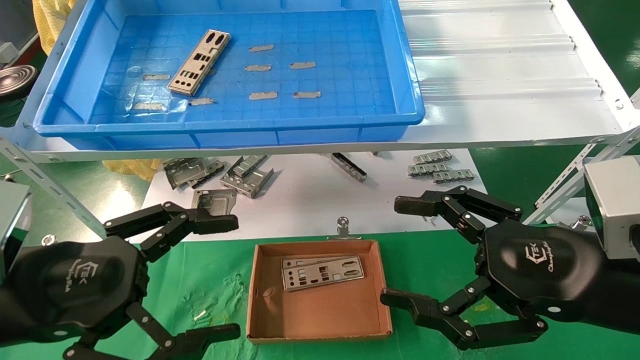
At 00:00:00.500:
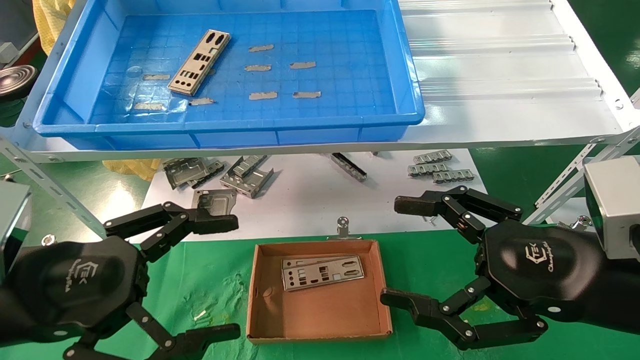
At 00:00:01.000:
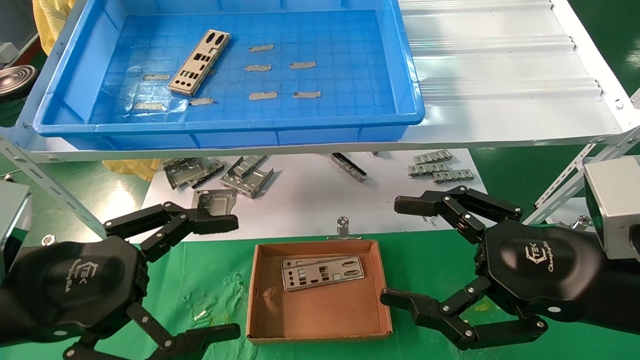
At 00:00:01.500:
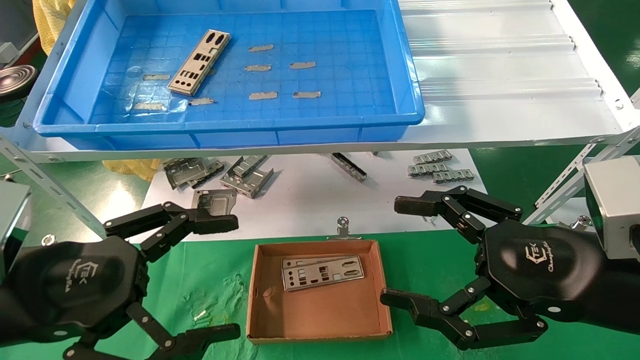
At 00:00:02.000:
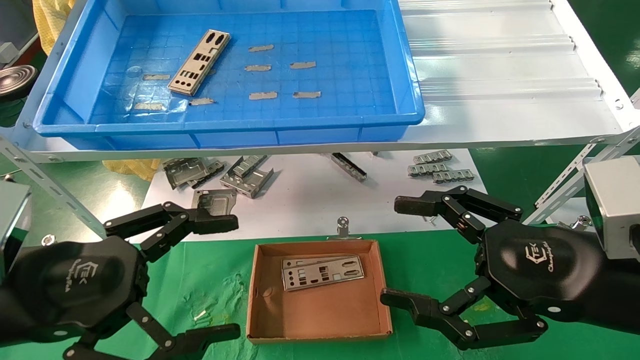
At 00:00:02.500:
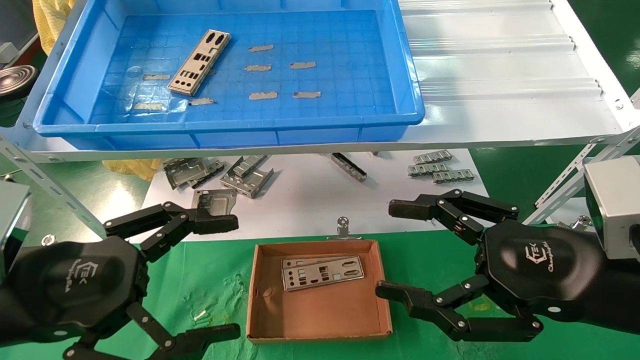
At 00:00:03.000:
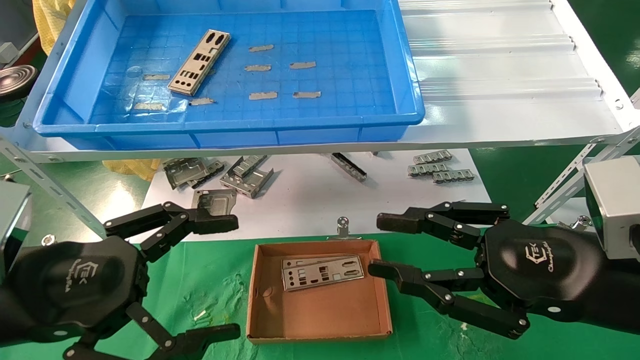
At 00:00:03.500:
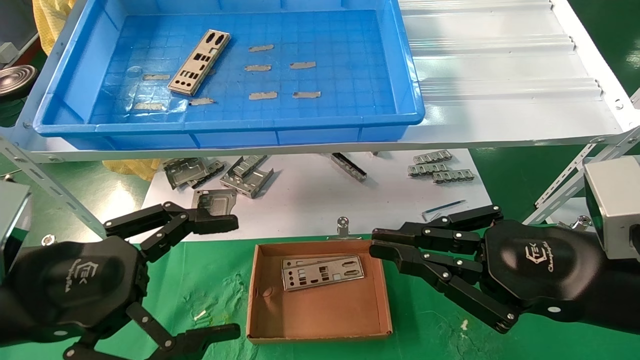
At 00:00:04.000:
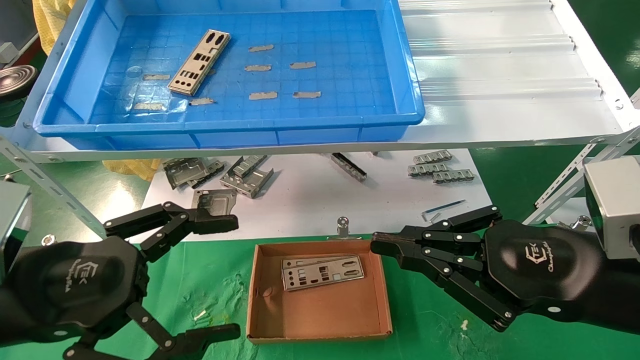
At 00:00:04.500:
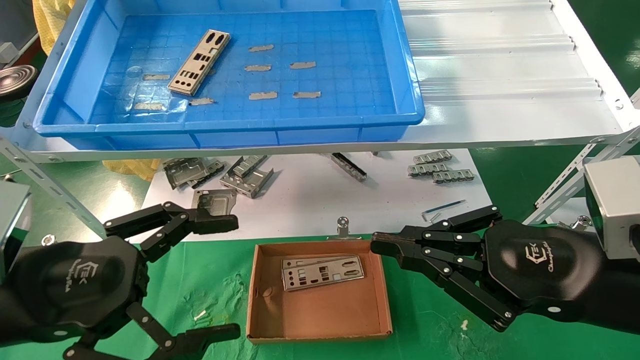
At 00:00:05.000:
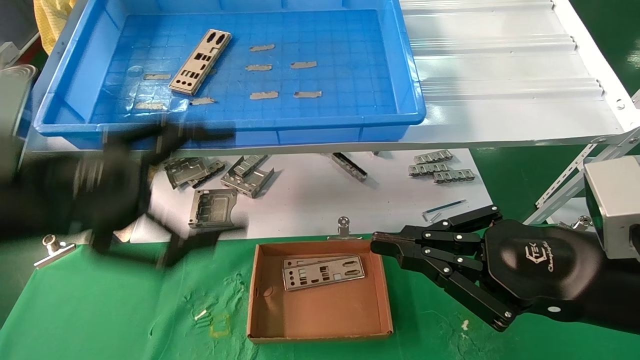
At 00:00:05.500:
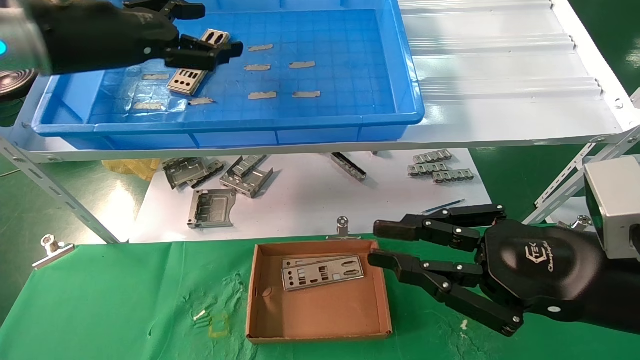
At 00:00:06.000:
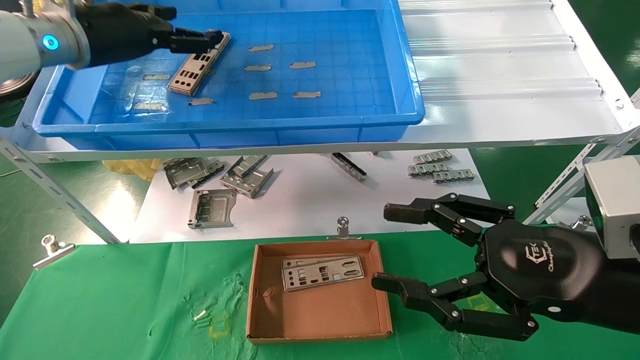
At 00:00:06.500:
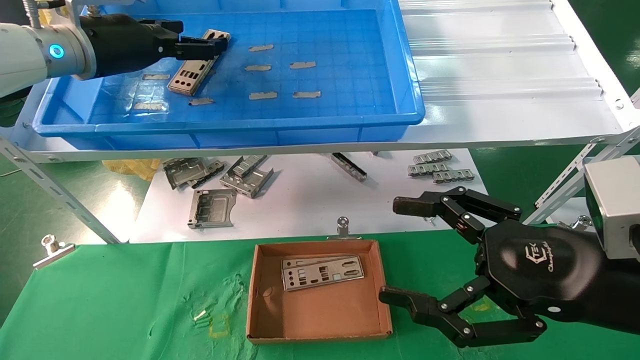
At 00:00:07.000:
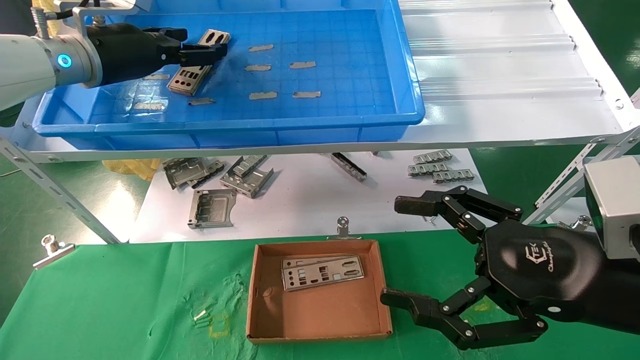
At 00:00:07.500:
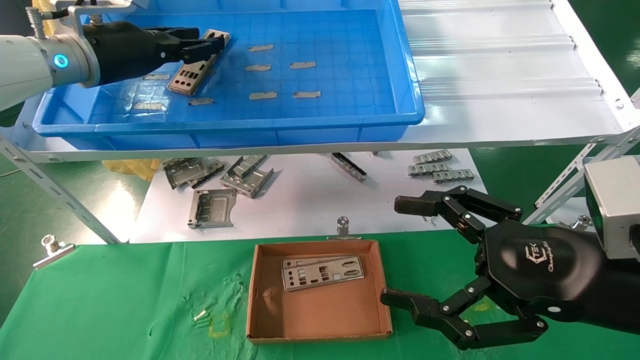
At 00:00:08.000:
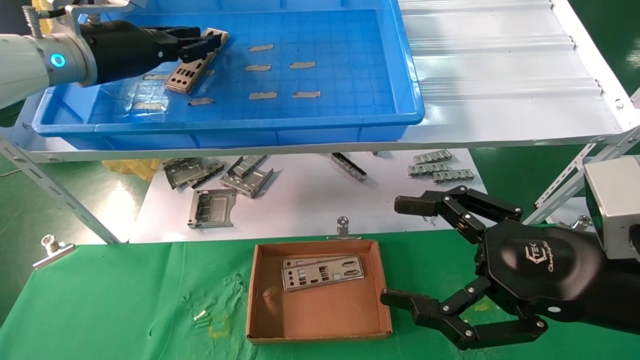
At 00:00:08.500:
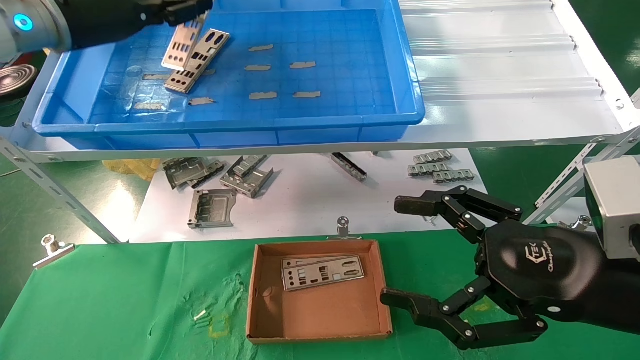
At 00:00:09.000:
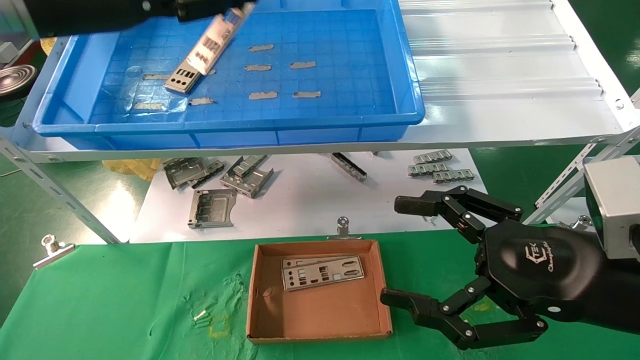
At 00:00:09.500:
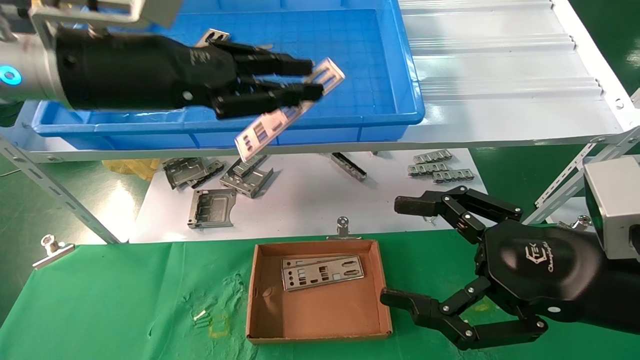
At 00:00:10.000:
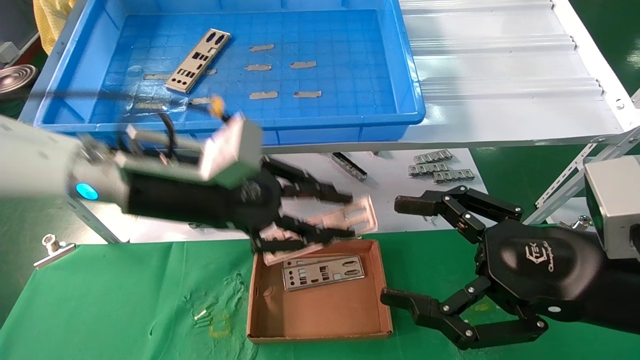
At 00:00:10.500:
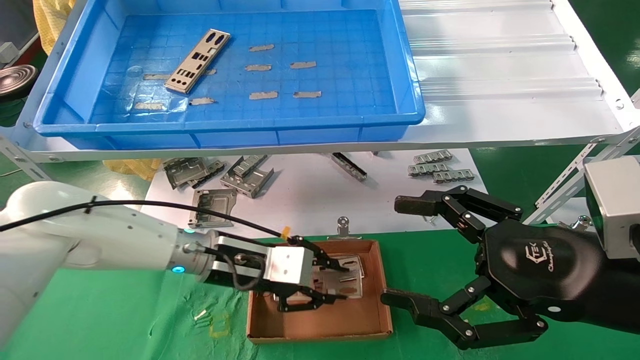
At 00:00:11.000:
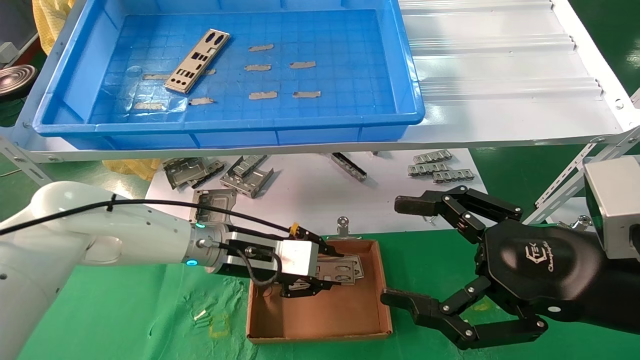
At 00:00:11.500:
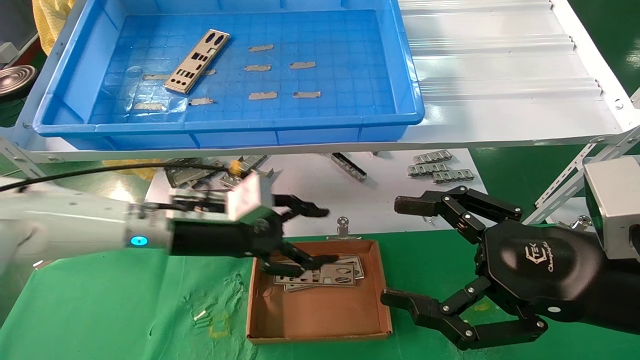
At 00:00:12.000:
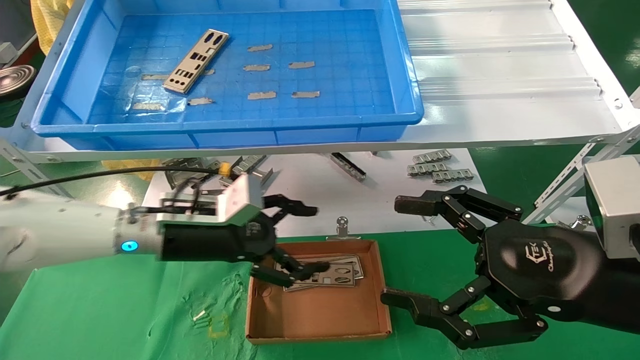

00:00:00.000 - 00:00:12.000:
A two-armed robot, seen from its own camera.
Task of the whole recording: pick up the parts on the tray and put them in the cardboard box.
Step, 00:00:05.500 - 00:00:07.500: Pick up the IO bracket from the container box.
Step, 00:00:08.000 - 00:00:11.000: Place the IO bracket into the ingredient slot.
00:00:00.000 - 00:00:02.000: Both grippers stay put.
00:00:02.000 - 00:00:04.000: The right gripper closes.
00:00:04.000 - 00:00:06.000: The left gripper moves forward and upward, roughly 30 cm; the right gripper opens up.
00:00:06.000 - 00:00:08.000: The right gripper opens its fingers. Meanwhile the left gripper closes up.
00:00:08.000 - 00:00:10.000: The left gripper is displaced downward, to the right and backward by approximately 20 cm.
00:00:10.000 - 00:00:12.000: The left gripper shifts roughly 10 cm downward, and opens its fingers.

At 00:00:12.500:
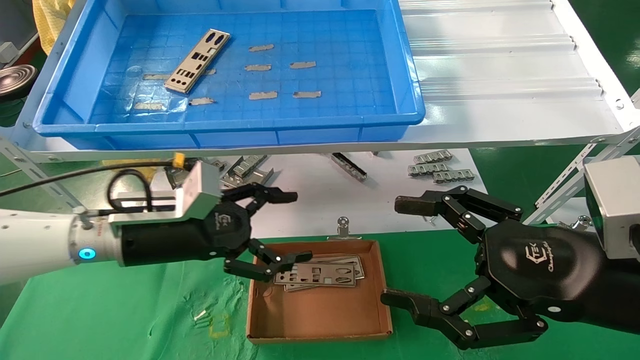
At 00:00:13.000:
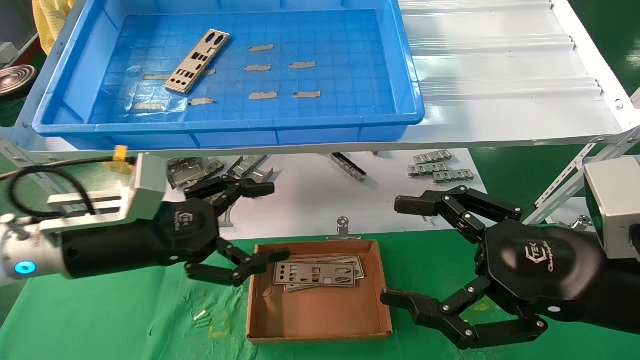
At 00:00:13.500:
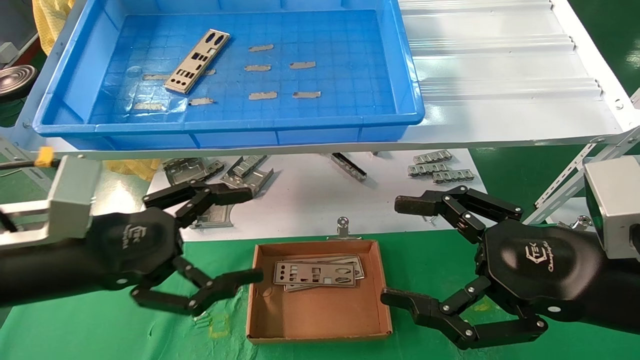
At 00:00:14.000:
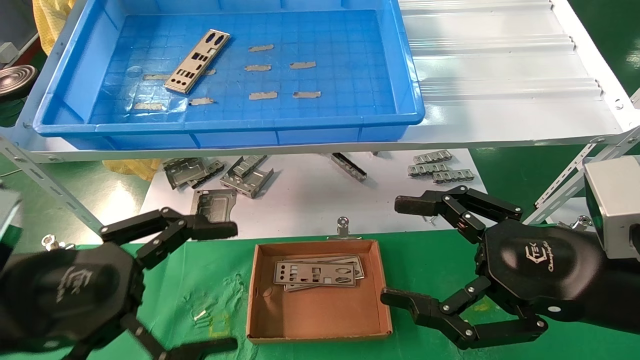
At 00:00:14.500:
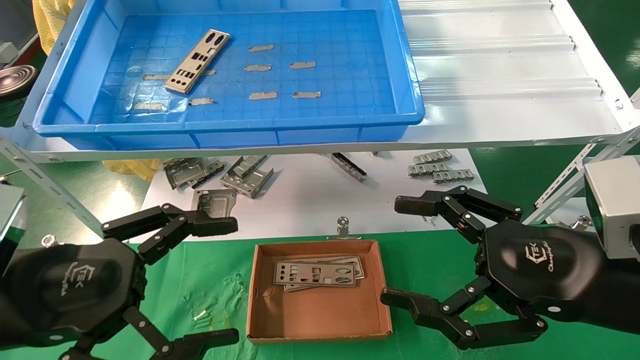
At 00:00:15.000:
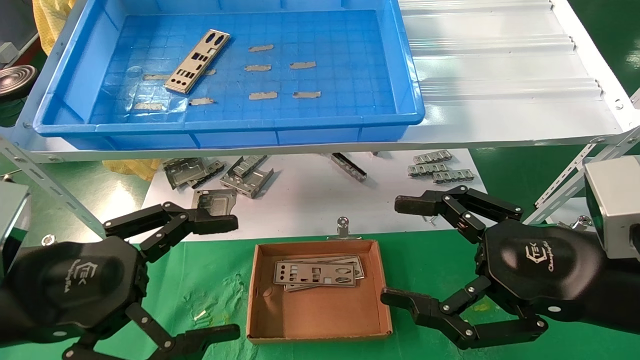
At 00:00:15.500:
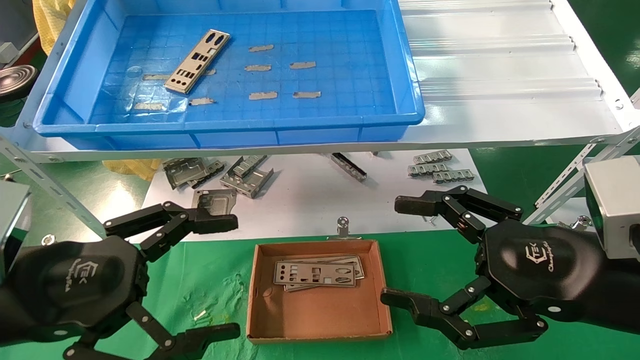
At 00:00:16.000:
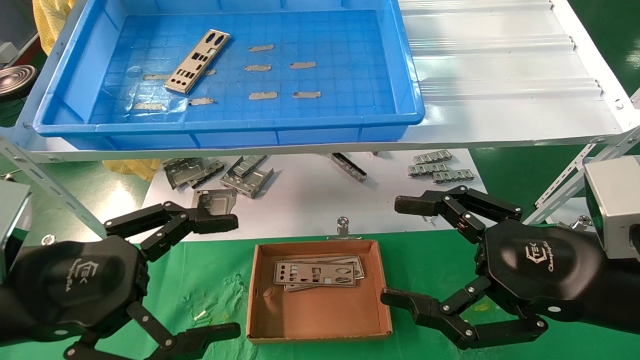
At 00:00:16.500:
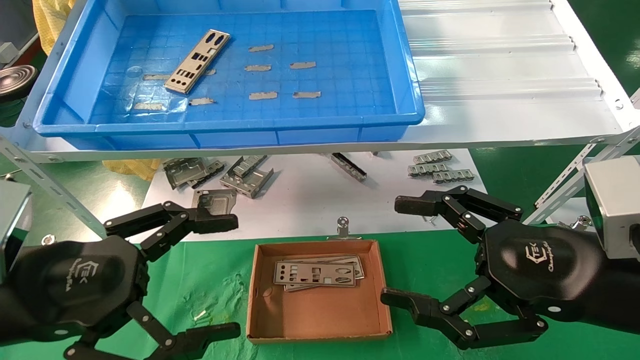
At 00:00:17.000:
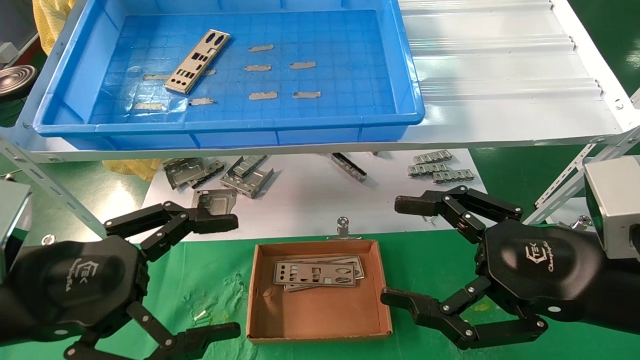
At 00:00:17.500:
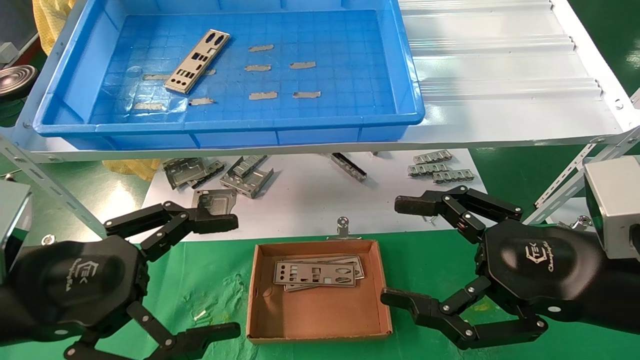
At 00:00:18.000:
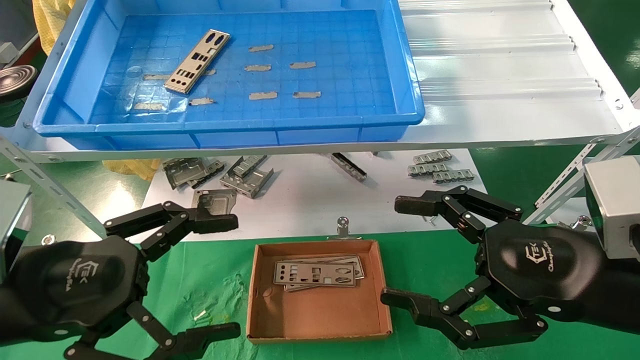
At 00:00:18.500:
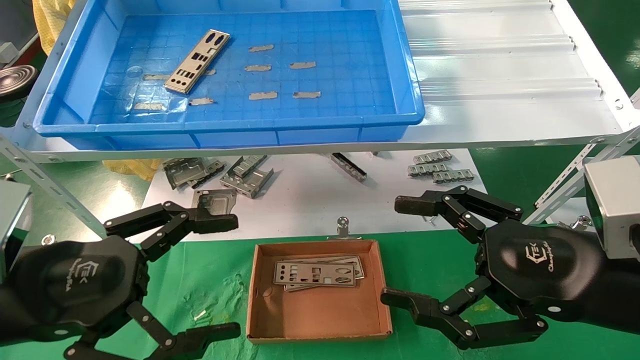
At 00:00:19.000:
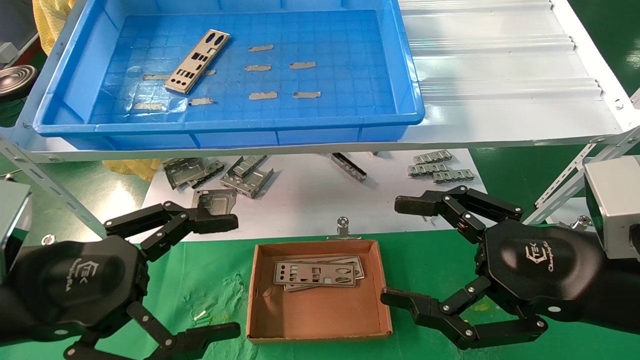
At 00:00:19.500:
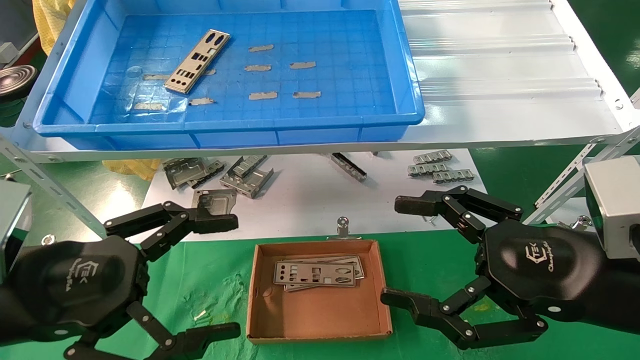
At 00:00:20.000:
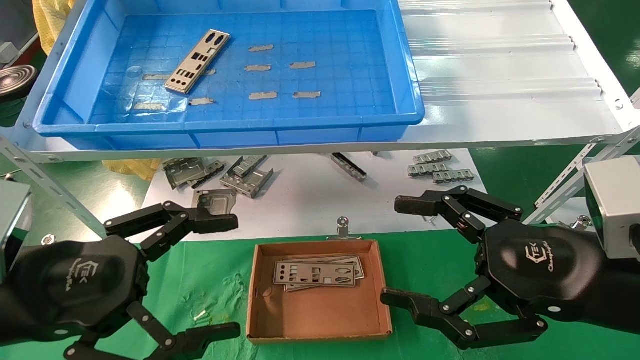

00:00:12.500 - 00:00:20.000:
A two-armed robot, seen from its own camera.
Task of the whole recording: pick up the parts on the tray and put them in the cardboard box.
00:00:12.500 - 00:00:14.500: The left gripper heads backward, covering about 15 cm.
00:00:14.500 - 00:00:20.000: Both grippers stay about where they are.
